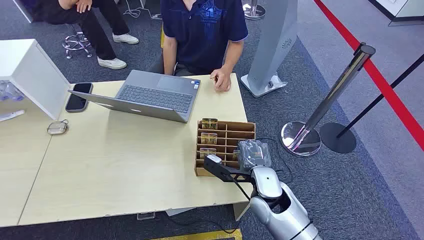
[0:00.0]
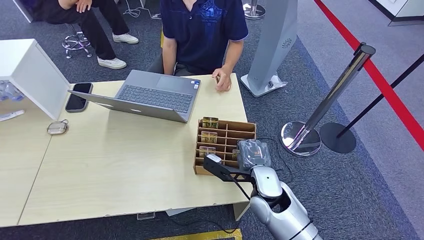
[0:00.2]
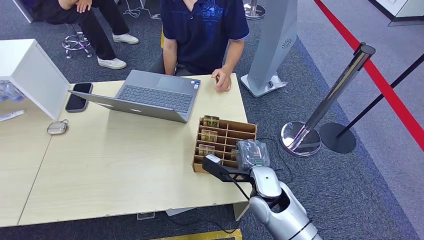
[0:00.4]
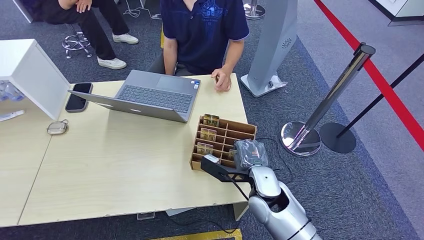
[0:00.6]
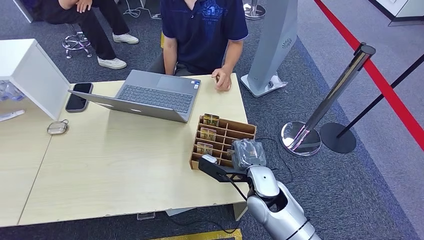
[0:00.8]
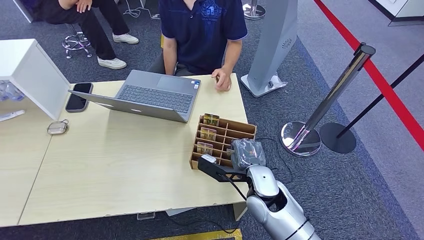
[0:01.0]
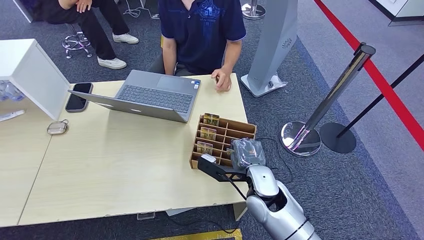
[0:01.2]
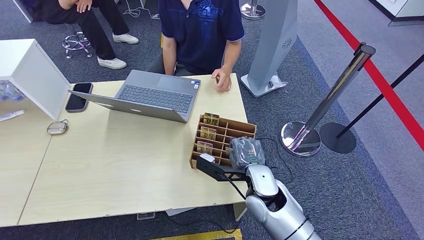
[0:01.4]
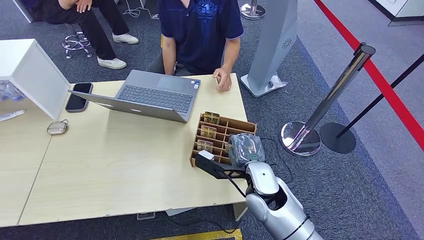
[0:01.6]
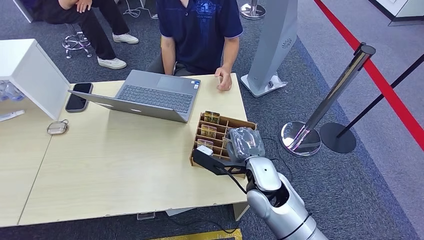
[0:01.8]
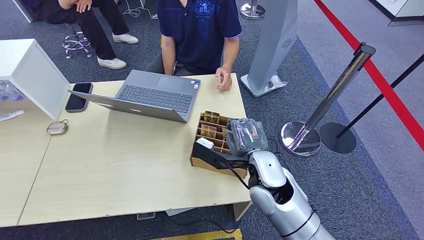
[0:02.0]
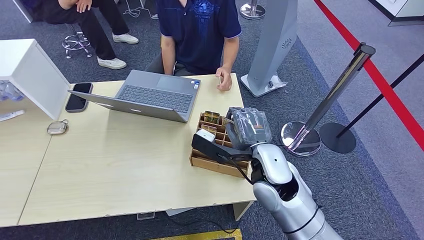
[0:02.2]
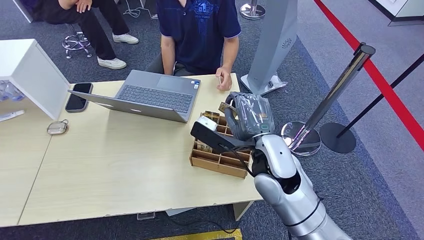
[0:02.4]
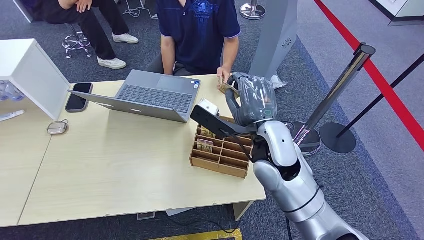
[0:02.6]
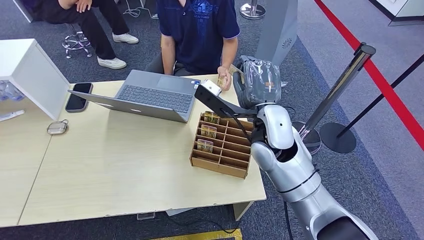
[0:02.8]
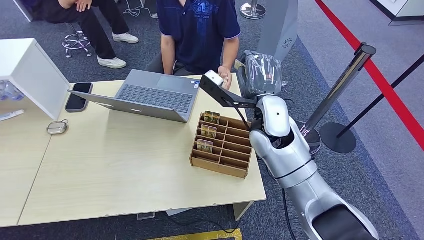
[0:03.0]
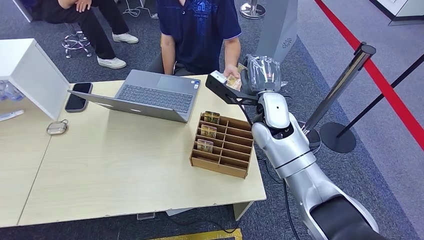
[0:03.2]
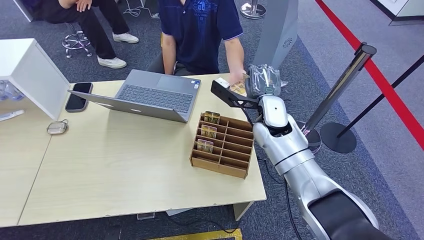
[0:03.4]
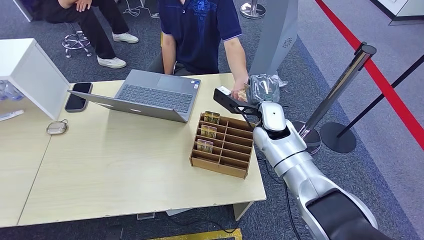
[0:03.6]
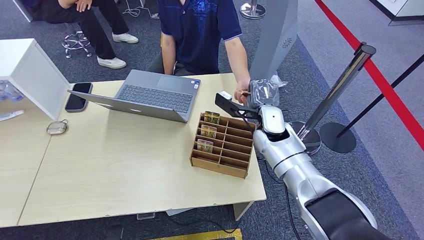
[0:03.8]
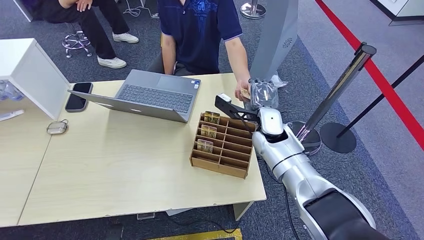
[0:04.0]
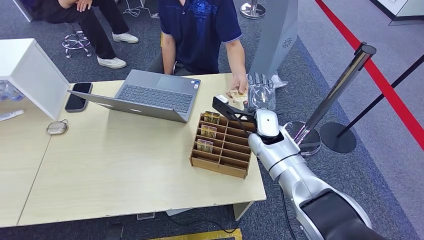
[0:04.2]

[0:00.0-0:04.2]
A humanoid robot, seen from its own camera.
Step, 0:00.0 to 0:02.0: Pick up the key card from the card box.
Step, 0:04.0 to 0:04.2: Hand the key card to the target.
0:01.4 to 0:02.8: The right hand heads upward and forward, covering approximately 15 cm.
0:02.8 to 0:04.2: The right hand goes approximately 10 cm downward.

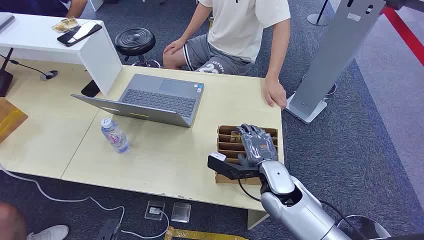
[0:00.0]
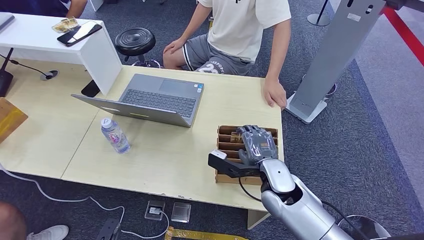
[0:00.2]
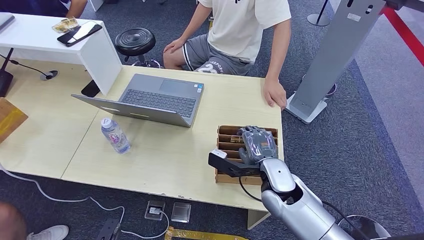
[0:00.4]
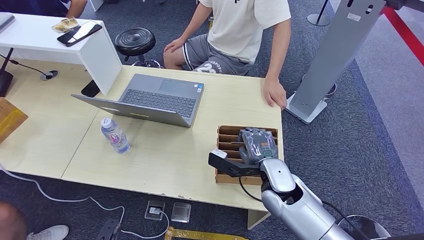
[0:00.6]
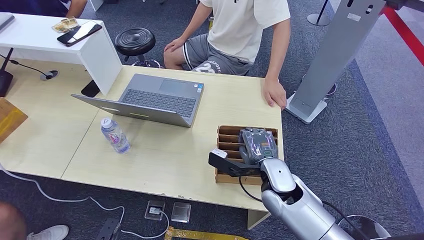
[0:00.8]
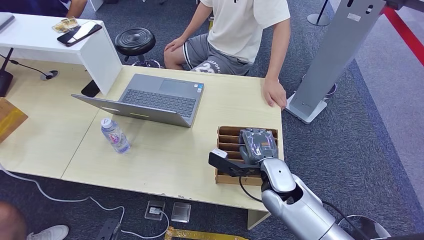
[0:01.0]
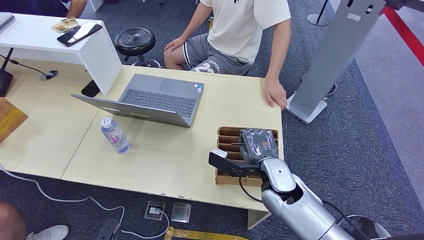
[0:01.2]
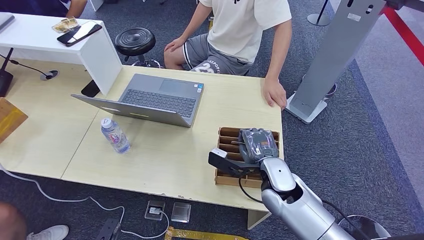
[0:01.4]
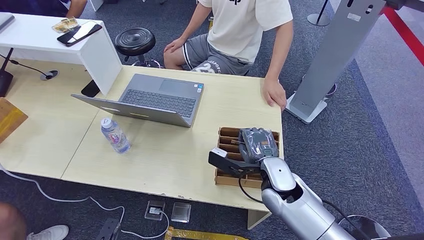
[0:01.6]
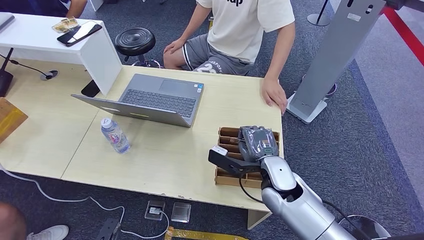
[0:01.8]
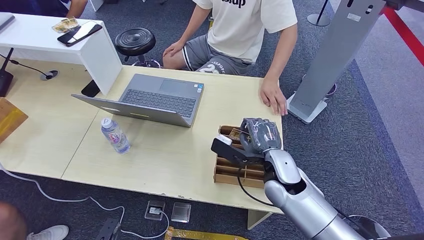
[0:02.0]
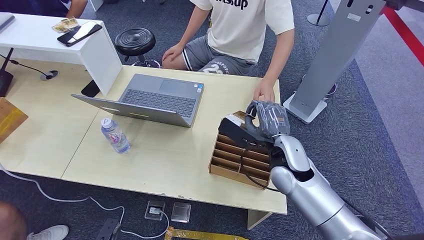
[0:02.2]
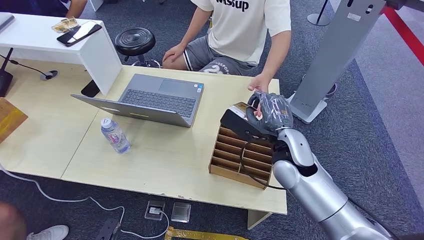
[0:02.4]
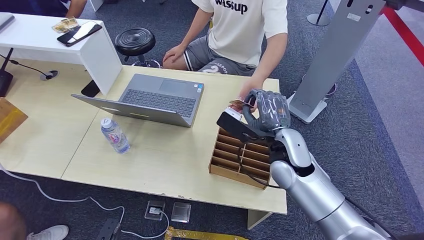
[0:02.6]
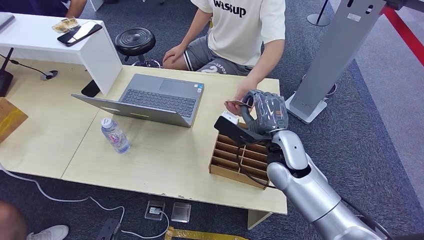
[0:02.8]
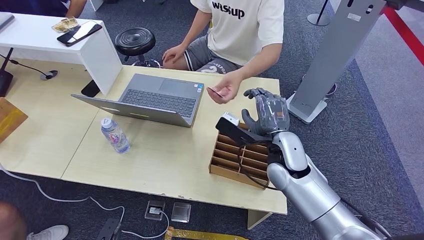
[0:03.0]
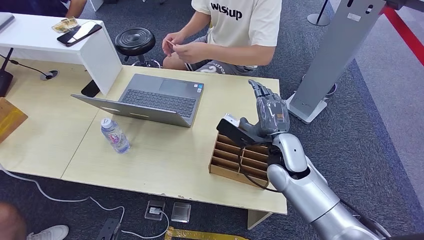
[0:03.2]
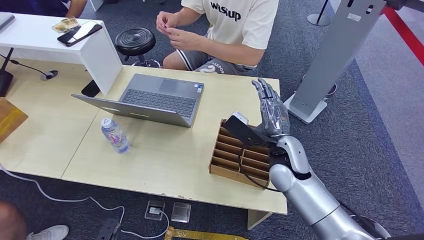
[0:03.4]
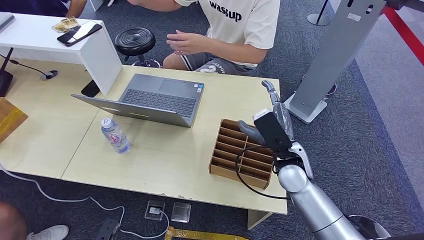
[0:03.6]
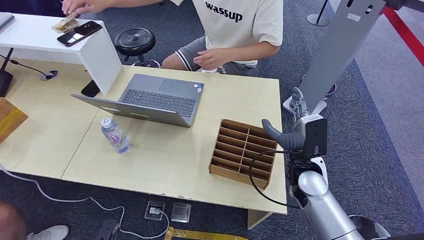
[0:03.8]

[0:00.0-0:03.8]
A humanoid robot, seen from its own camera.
Step, 0:00.0 to 0:02.0: Pick up the key card from the card box.
Step, 0:02.4 to 0:03.8: Hand the key card to the target.
0:01.2 to 0:02.6: The right hand heads upward, covering approximately 5 cm.
0:02.6 to 0:03.8: The right hand moves downward and to the right, roughly 10 cm.
